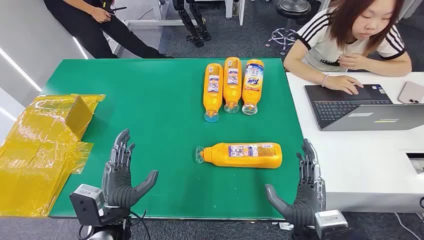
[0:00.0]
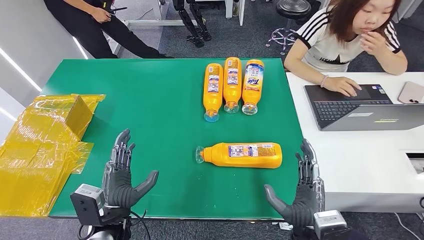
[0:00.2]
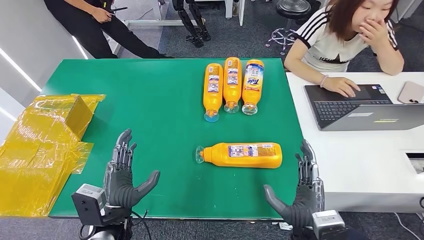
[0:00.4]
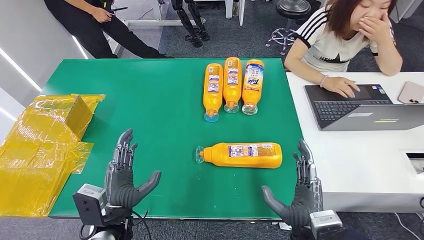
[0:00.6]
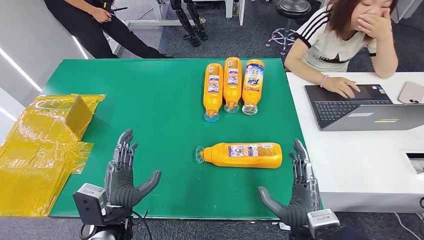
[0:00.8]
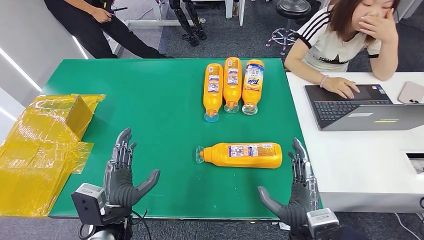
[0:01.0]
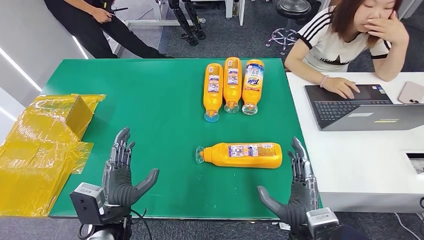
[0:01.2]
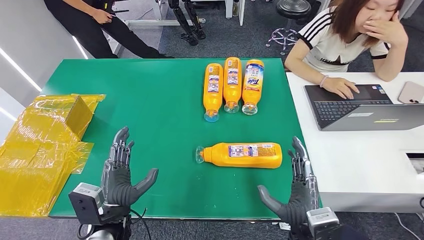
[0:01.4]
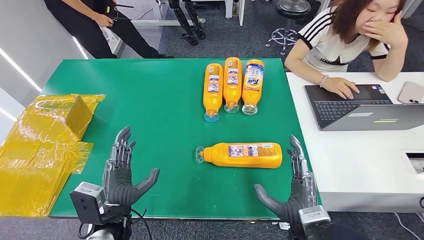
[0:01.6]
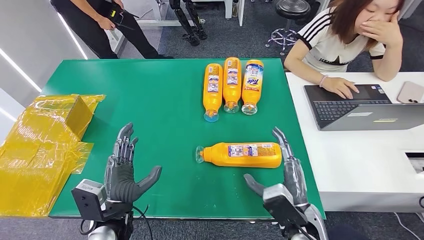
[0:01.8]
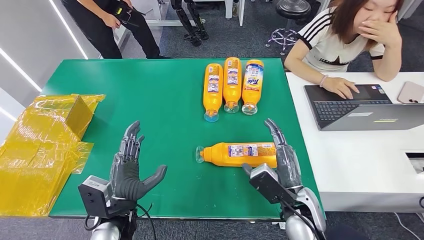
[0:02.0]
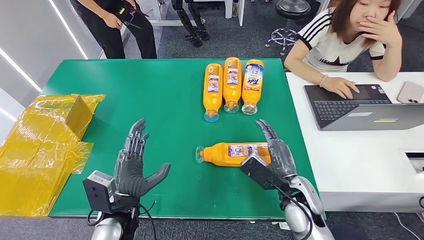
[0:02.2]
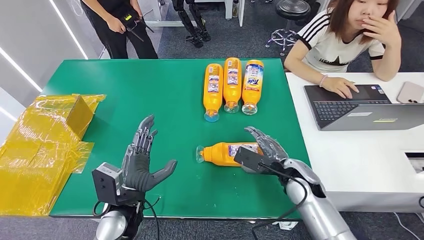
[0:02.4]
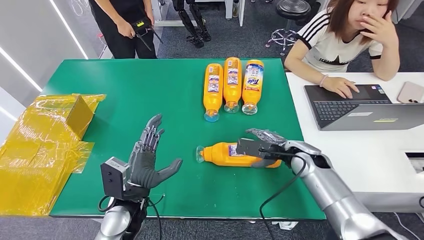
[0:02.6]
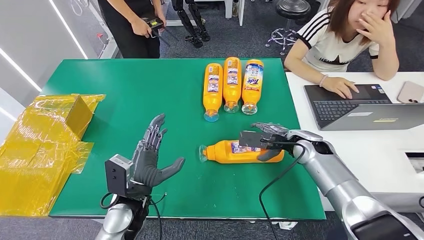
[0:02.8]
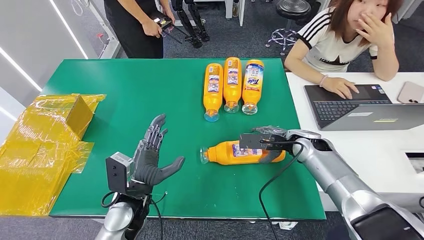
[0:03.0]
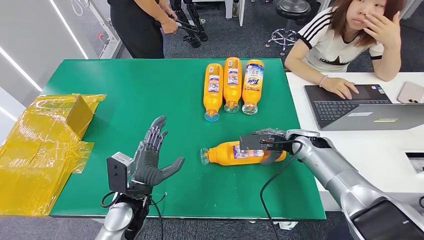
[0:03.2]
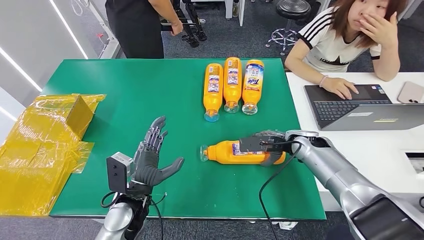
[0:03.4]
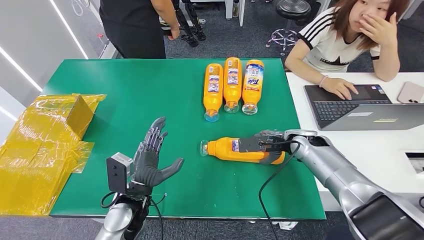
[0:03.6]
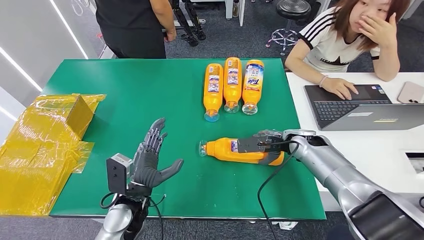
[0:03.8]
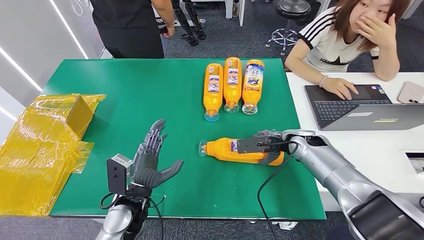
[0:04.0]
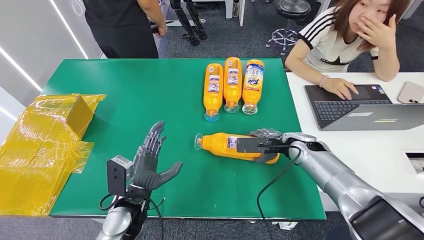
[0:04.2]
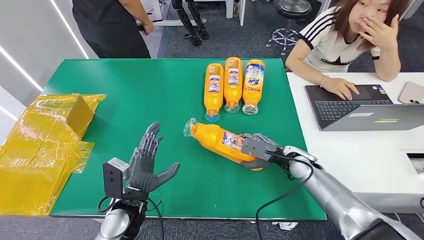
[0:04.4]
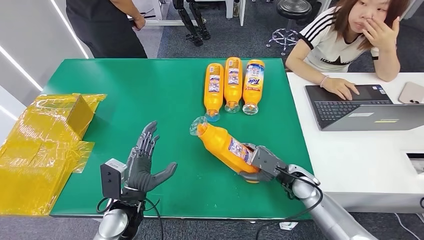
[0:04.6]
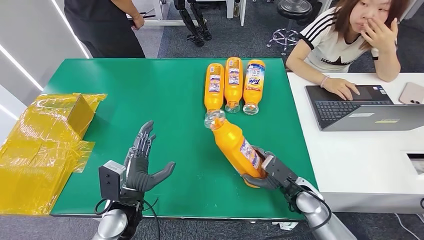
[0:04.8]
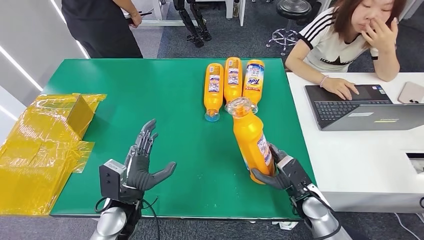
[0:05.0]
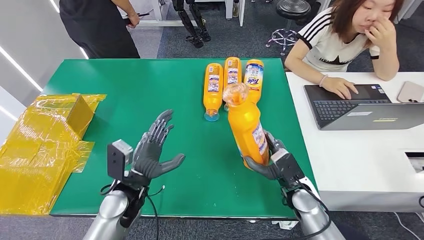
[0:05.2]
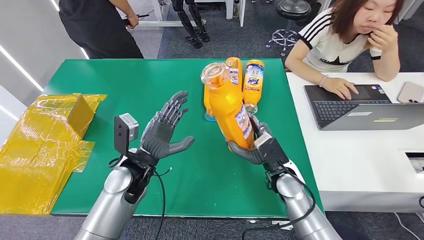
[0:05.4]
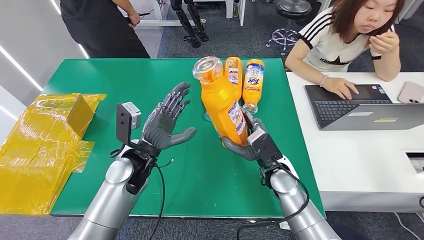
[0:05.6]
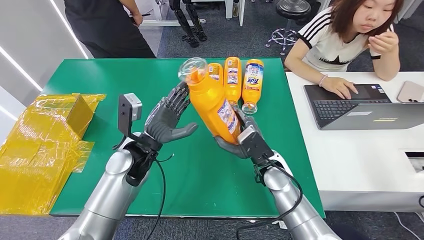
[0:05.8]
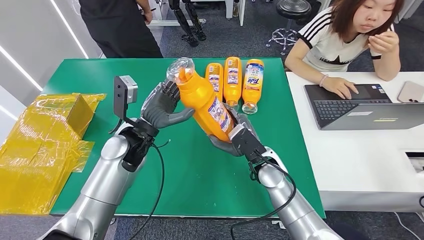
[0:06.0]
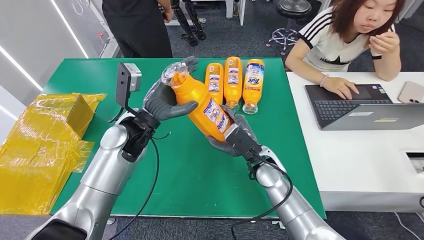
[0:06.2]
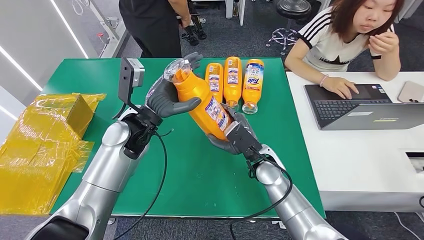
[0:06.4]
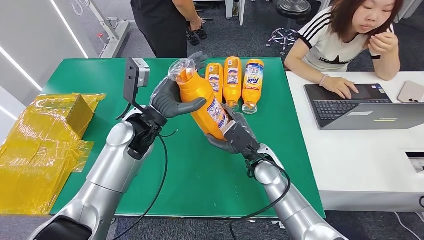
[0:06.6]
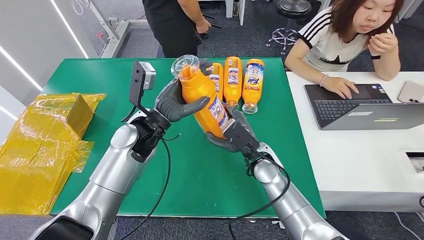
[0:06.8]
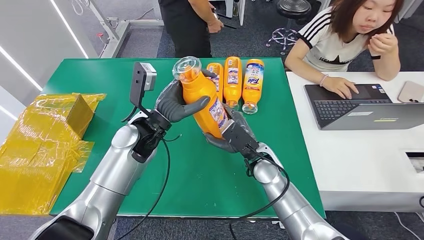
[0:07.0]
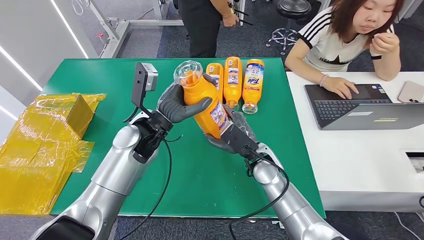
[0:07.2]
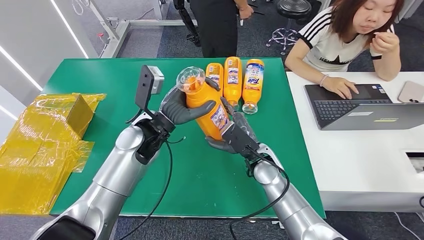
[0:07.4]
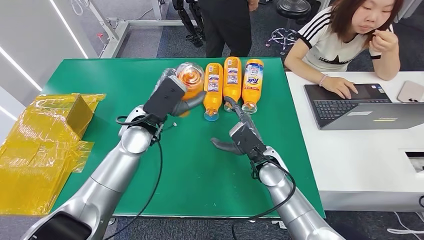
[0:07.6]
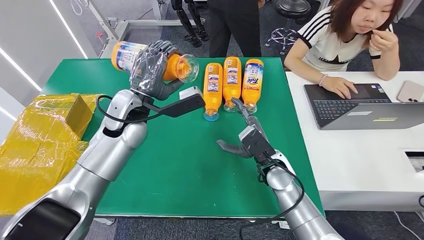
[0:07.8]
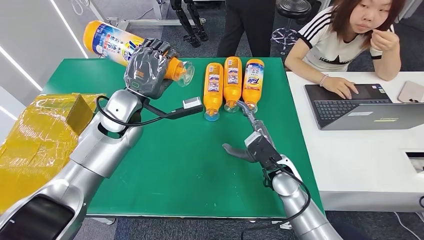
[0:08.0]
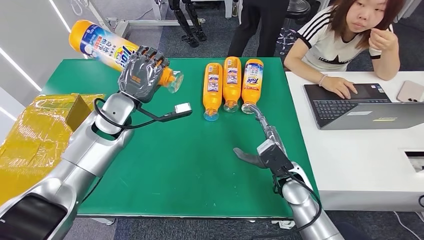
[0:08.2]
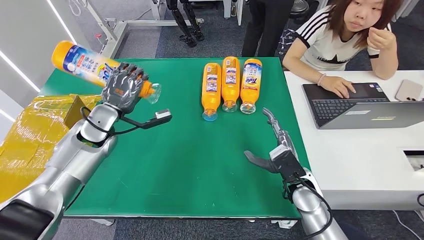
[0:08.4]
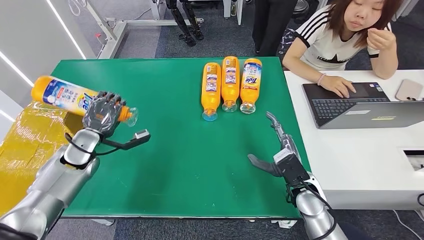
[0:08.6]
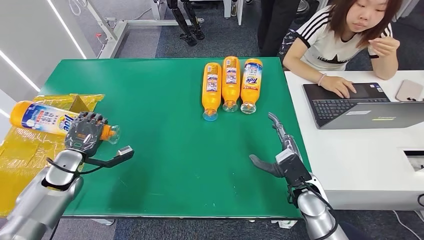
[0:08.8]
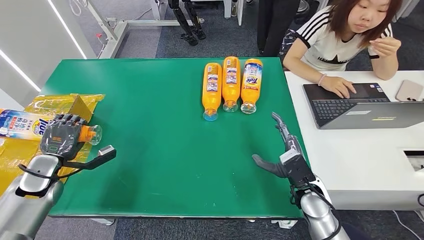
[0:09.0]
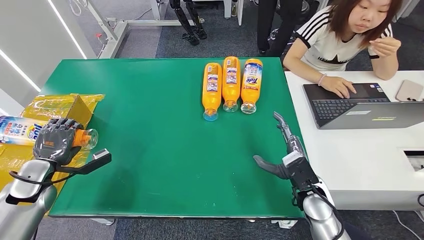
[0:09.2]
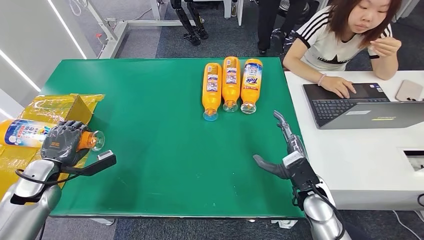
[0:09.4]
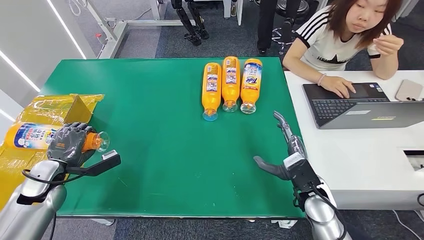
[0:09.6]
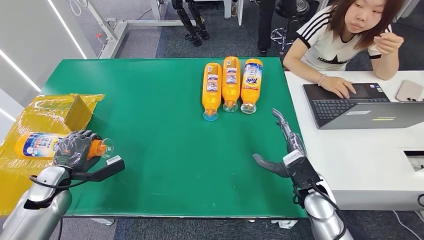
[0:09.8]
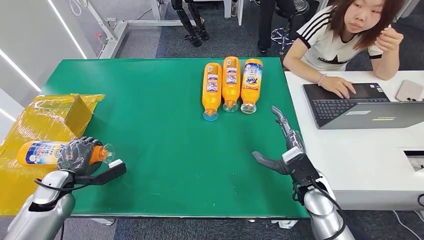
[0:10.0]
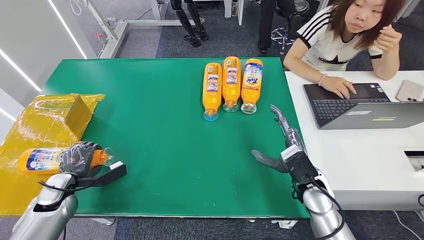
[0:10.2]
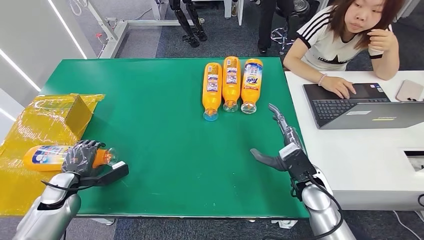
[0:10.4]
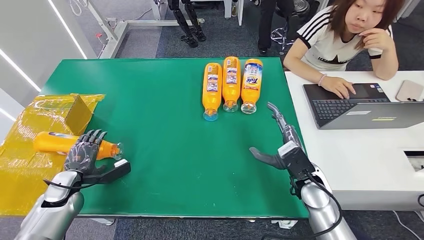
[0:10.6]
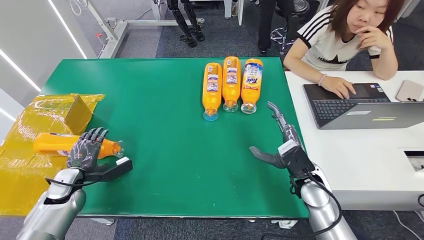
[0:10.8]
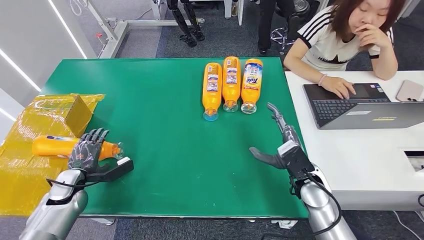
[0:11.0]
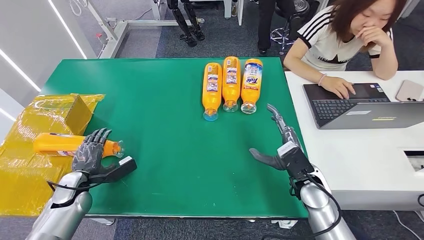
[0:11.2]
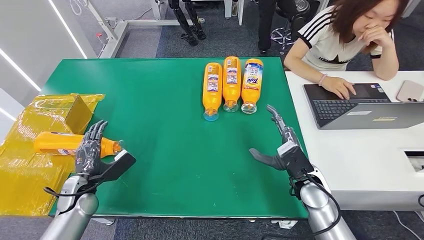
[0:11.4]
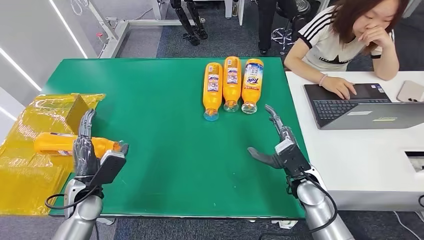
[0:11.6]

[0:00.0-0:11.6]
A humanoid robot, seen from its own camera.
Step, 0:00.0 to 0:05.8: Pick up the bottle from the table.
Step, 0:06.0 to 0:11.4: Turn the bottle to the front side.
0:02.8 to 0:04.4: The right hand shifts approximately 5 cm downward.
0:05.8 to 0:07.2: The left hand ends up about 5 cm from where it was.
0:08.8 to 0:10.2: The left hand moves some 5 cm.
0:10.2 to 0:11.6: The left hand heads to the right, covering roughly 10 cm.
